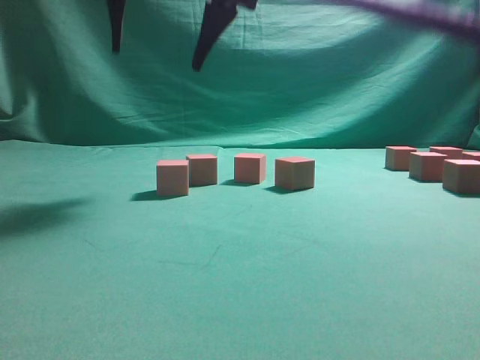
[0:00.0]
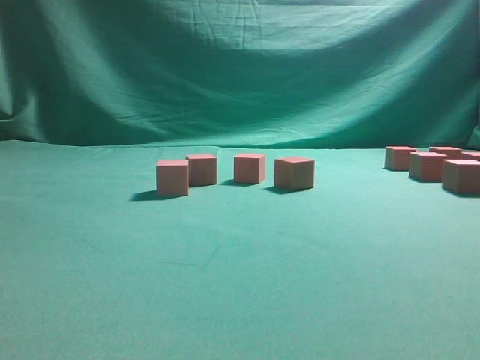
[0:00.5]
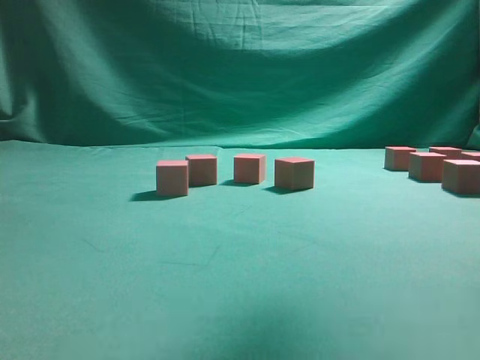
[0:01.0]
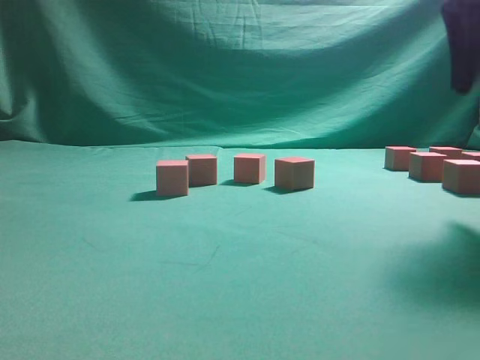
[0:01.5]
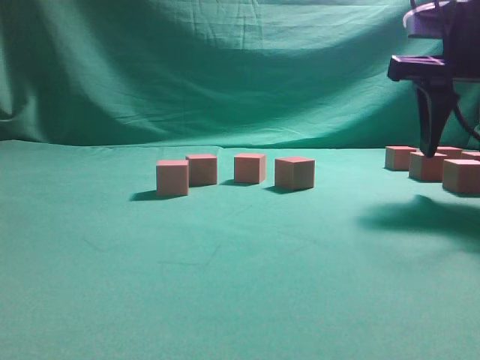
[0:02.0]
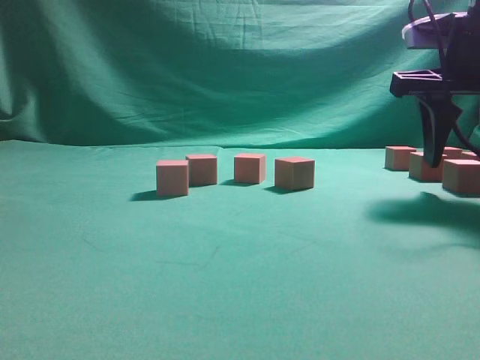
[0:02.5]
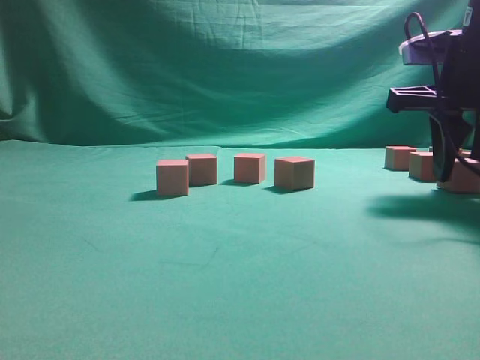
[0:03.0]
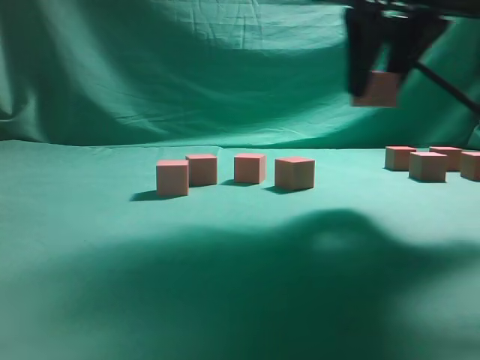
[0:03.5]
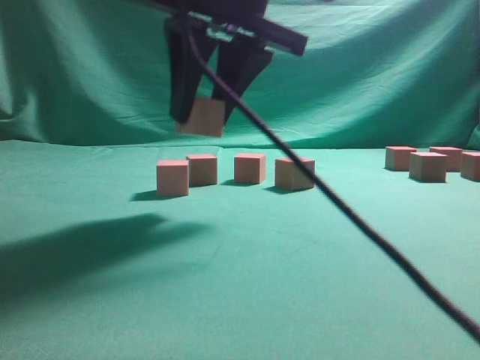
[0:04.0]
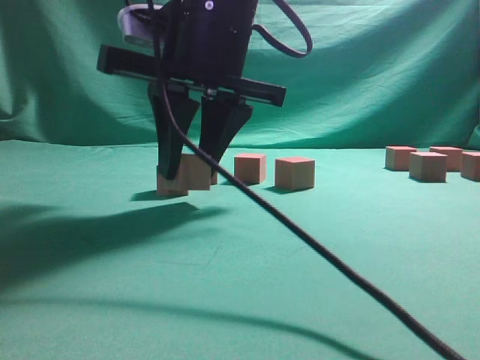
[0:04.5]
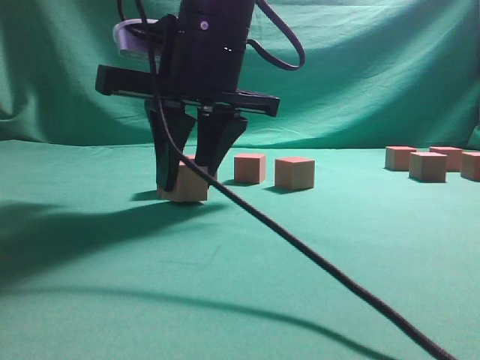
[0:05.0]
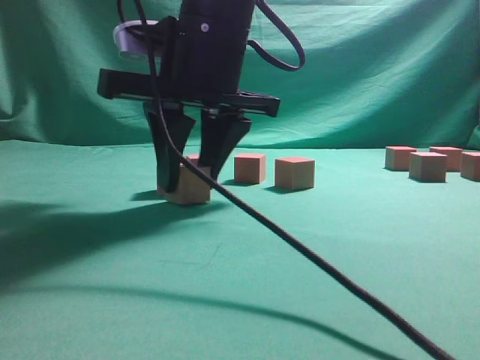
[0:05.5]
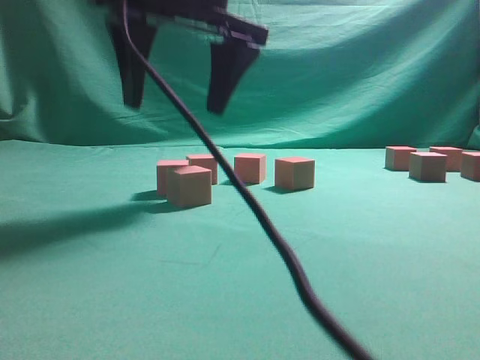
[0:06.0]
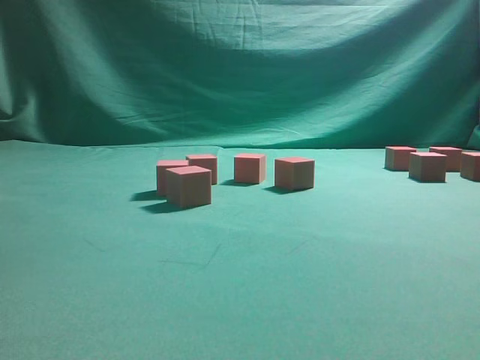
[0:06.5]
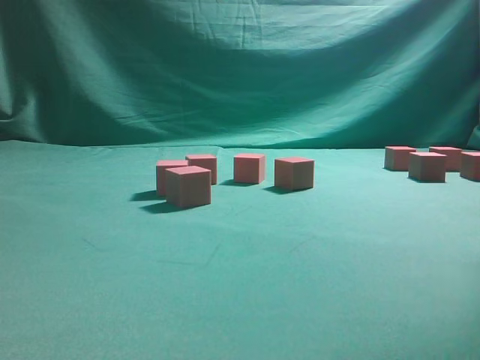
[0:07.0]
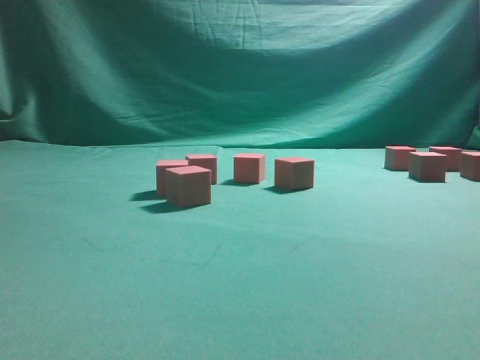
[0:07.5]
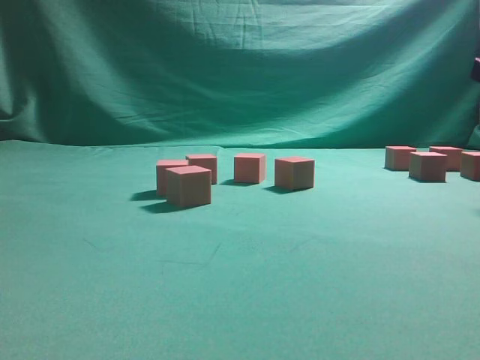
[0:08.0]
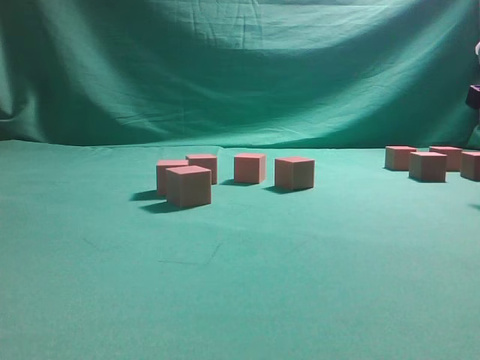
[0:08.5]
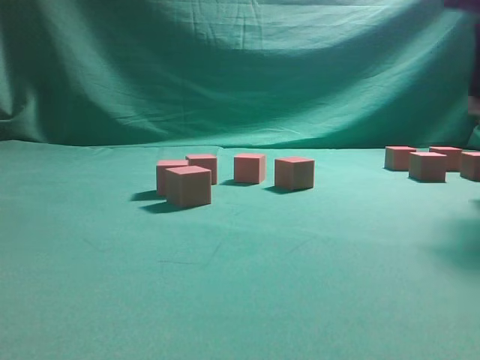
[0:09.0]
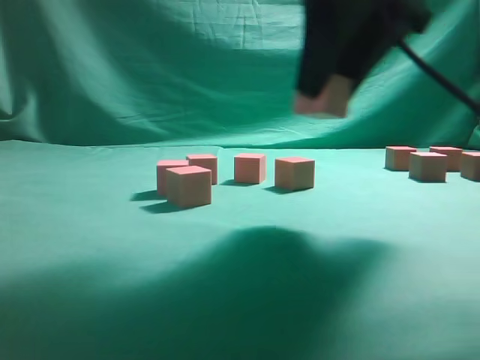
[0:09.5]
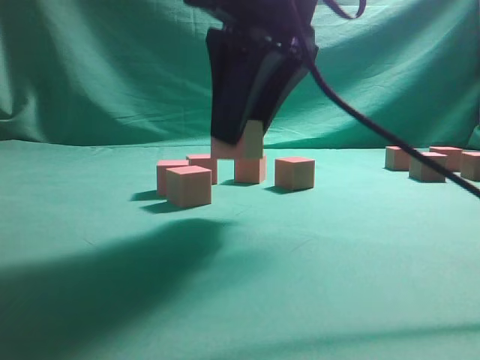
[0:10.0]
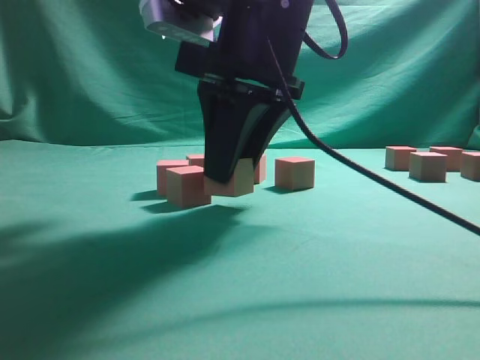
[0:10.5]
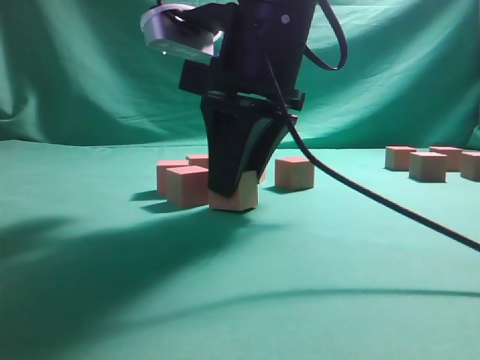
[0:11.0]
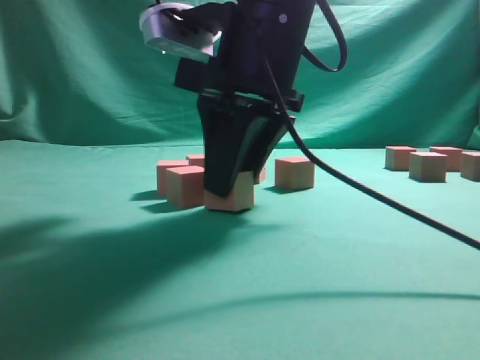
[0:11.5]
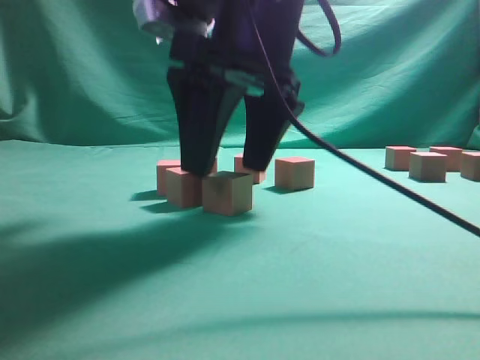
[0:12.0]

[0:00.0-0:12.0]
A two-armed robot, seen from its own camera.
Task of the whole recording: pick up the multiple cubes in two columns one by one and place them in another position on the table.
Step, 0:00.5 to 0:03.0: Pick up the block on the table.
Step, 0:03.5 to 0:06.0: Place the block at the correct position to assemble the letter S.
0:00.0 to 0:02.0: The right gripper travels to the right by about 25 cm.
0:02.0 to 0:04.0: The right gripper travels to the left by about 20 cm.
0:04.0 to 0:06.0: The right gripper opens.
0:06.0 to 0:08.0: The right gripper shifts about 35 cm to the right.
0:08.0 to 0:10.0: The right gripper is displaced to the left by about 25 cm, and closes up.
0:10.0 to 0:12.0: The right gripper opens up.

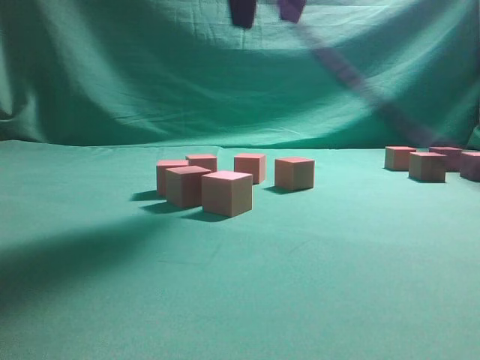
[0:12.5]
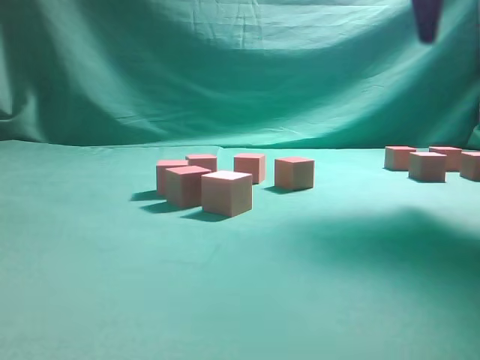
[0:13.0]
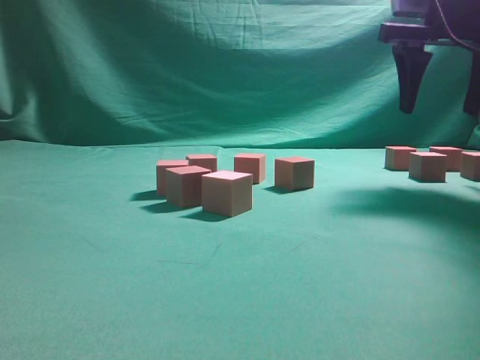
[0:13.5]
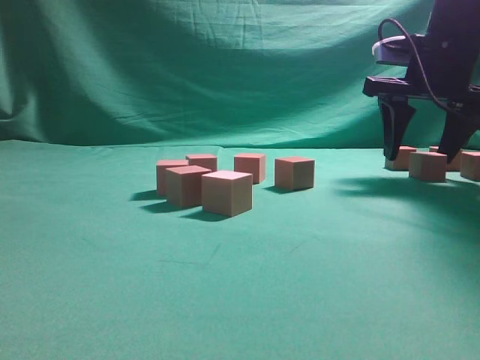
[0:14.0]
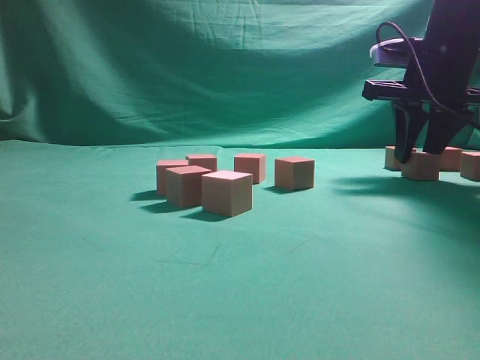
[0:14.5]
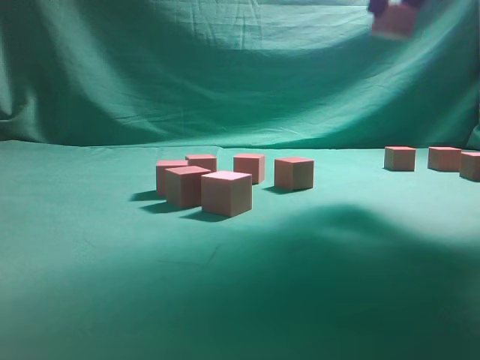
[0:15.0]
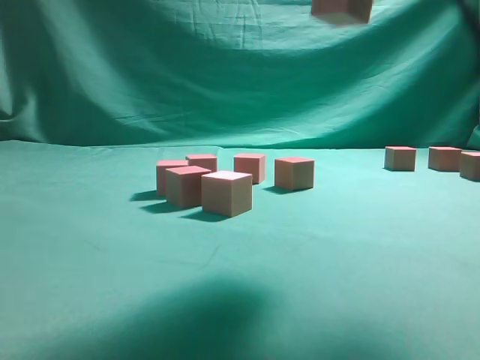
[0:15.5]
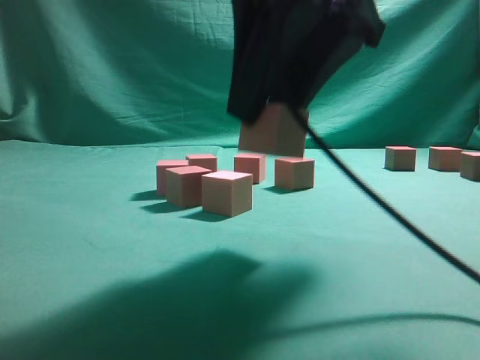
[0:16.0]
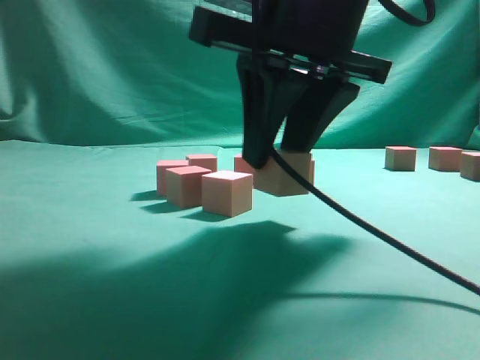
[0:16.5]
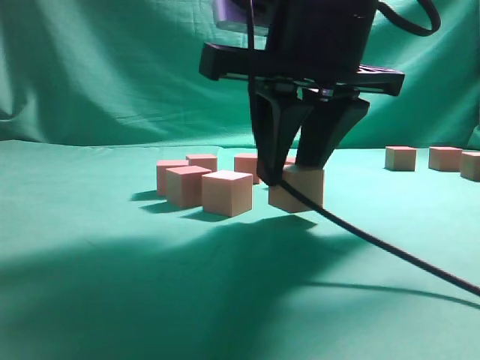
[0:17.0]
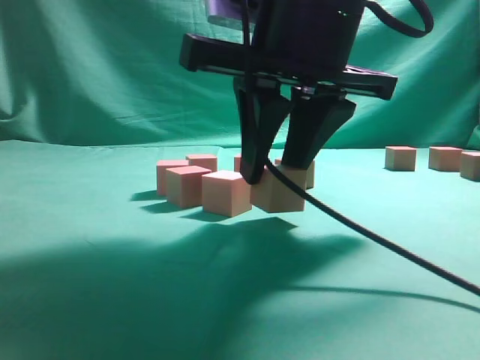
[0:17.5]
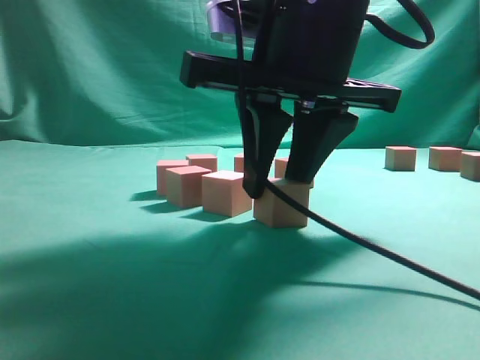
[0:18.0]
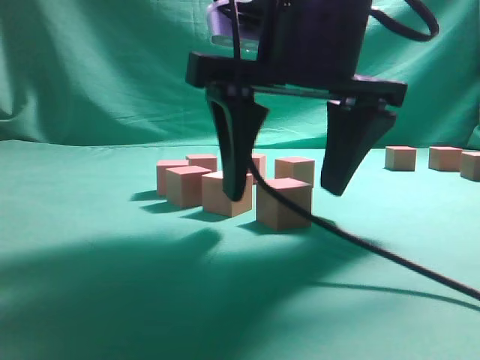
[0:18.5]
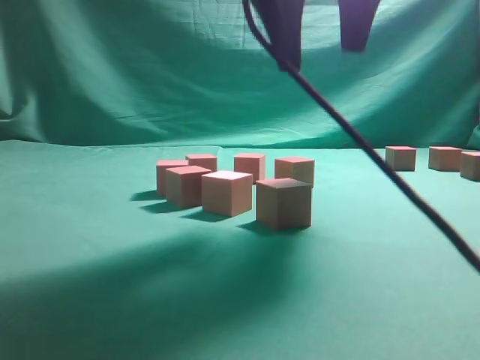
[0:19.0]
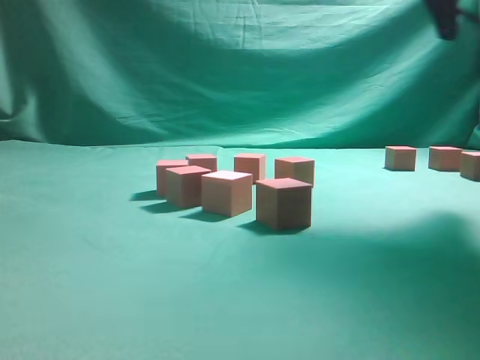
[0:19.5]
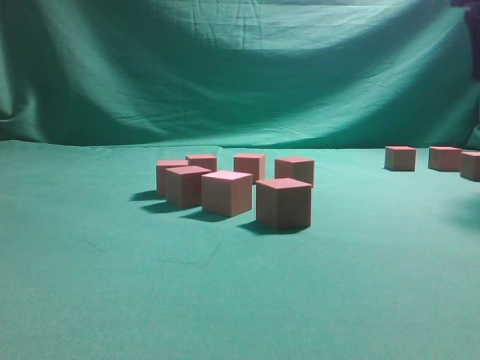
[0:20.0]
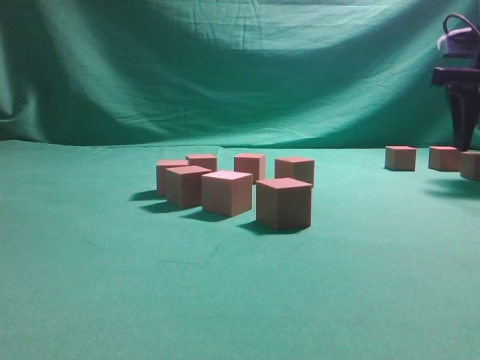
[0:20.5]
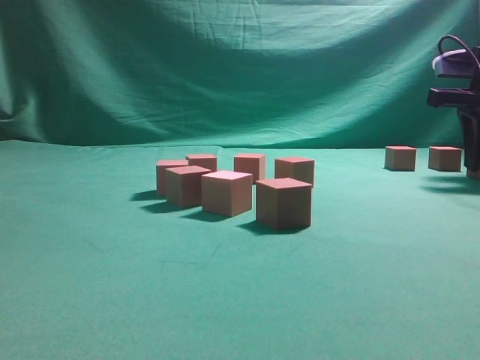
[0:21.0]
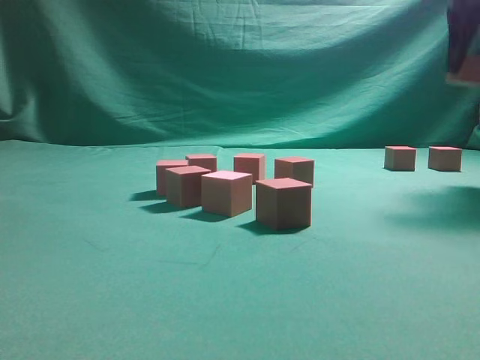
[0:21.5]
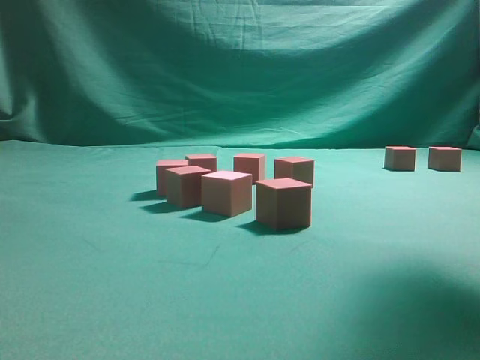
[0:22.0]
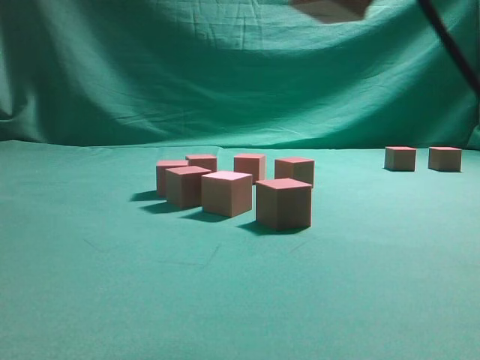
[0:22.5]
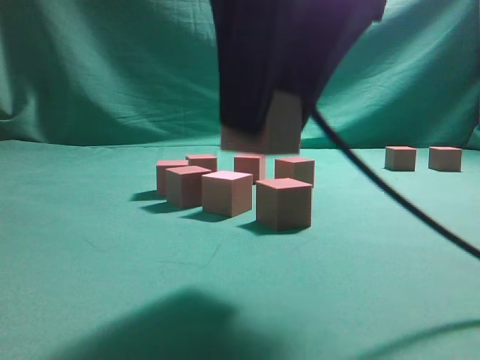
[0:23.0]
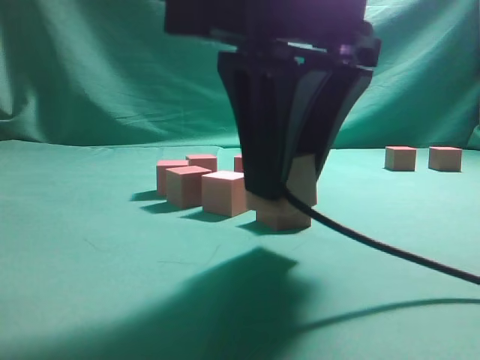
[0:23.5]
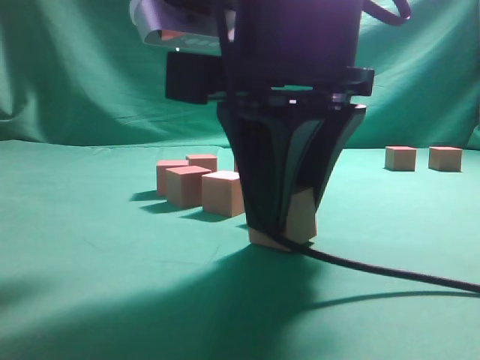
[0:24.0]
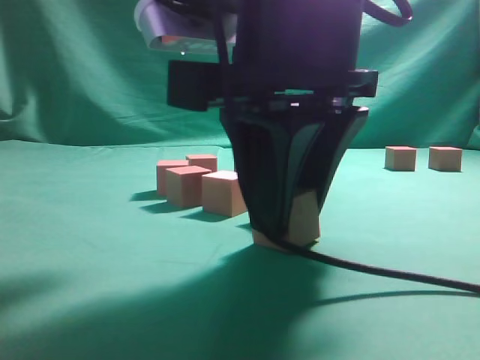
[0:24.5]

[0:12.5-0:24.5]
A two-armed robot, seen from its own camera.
Task of the whole recording: pick up the multiple cubes in two columns one by one and place them in another position on the table.
Step, 0:12.5 to 0:14.5: Pick up the block on the table.
Step, 0:15.0 to 0:19.0: Place the block at the correct position to assemble the letter S.
Step, 0:19.5 to 0:21.0: Pick up the block on the table.
0:12.5 to 0:14.5: The right gripper is displaced to the right, downward and forward by about 25 cm, and closes its fingers.
0:14.5 to 0:16.5: The right gripper moves backward and to the left, approximately 25 cm.
0:16.5 to 0:18.5: The right gripper opens up.
0:18.5 to 0:20.5: The right gripper goes some 30 cm to the right and forward.
0:20.5 to 0:22.5: The right gripper travels backward, to the left and upward by some 30 cm, and closes its fingers.
0:22.5 to 0:24.5: The right gripper travels downward and to the left by roughly 15 cm.

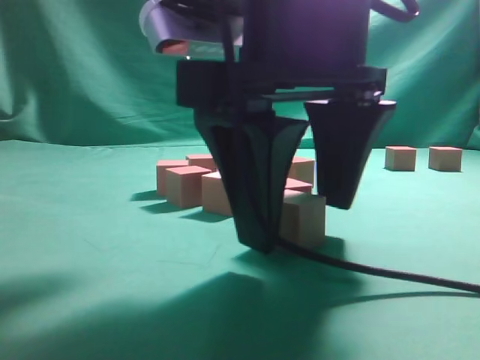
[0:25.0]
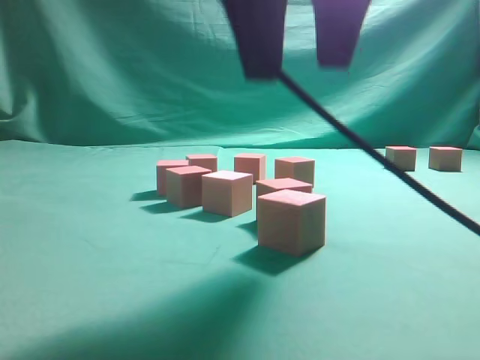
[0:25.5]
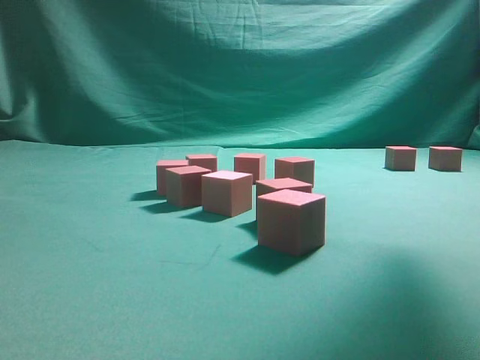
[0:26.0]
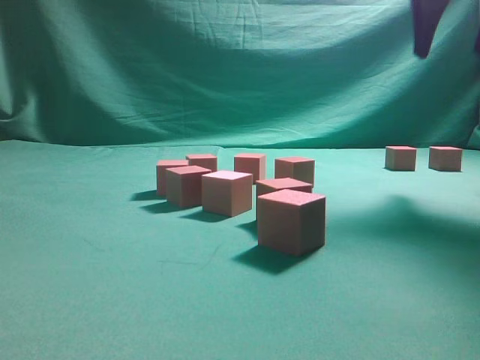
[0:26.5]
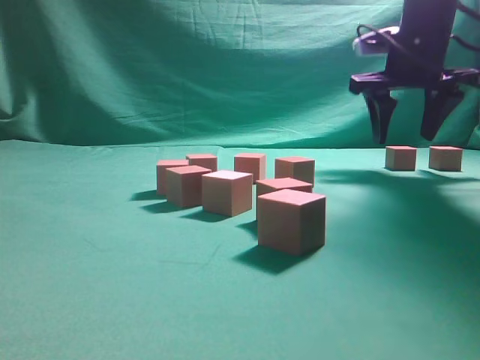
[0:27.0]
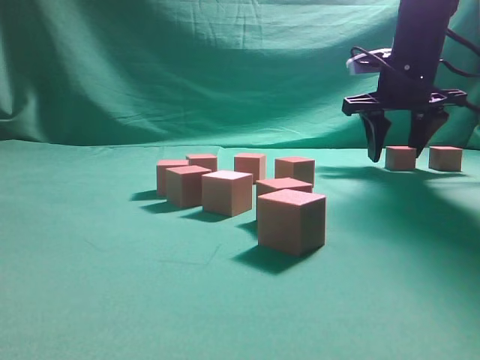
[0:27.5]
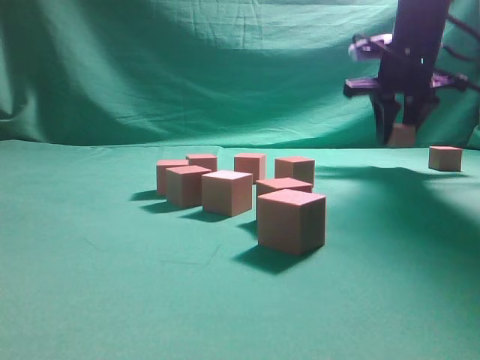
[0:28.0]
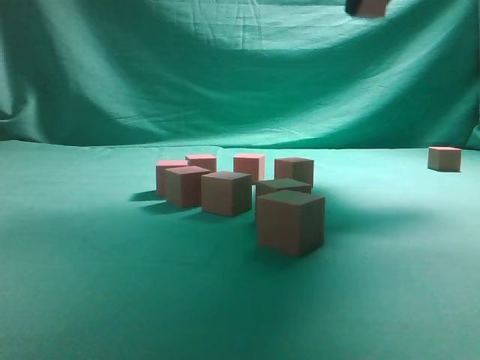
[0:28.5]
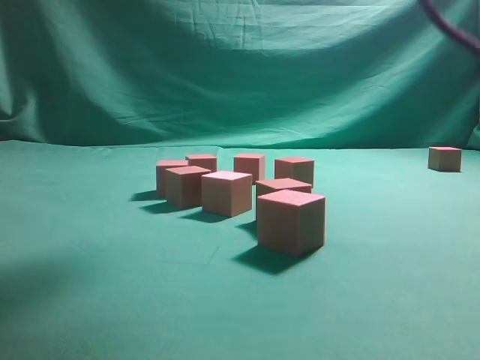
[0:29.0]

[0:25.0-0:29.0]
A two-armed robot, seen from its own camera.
Task of the whole recording: pick up the multiple cubes in two columns one by one and place them in another position on the table.
Step, 0:26.0 to 0:27.5: Pick up the block on the table.
0:25.0 to 0:27.0: The right gripper shifts about 30 cm forward and to the right.
0:27.0 to 0:29.0: The right gripper travels upward, backward and to the left by some 25 cm, and closes up.
